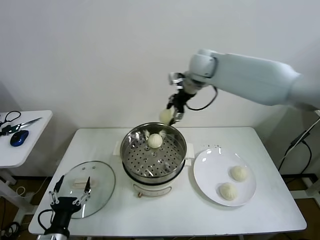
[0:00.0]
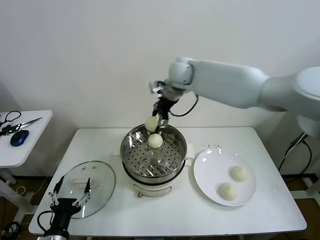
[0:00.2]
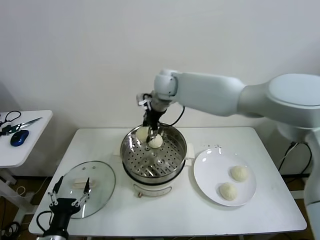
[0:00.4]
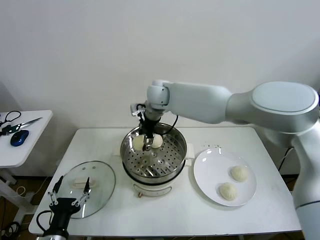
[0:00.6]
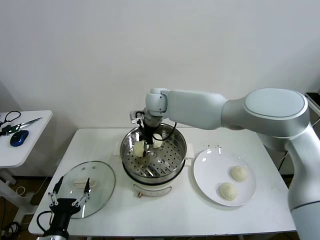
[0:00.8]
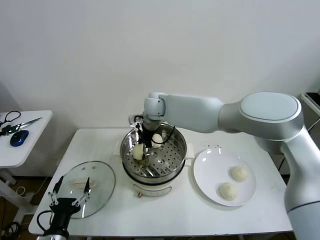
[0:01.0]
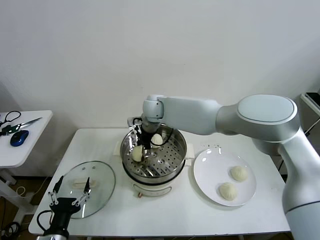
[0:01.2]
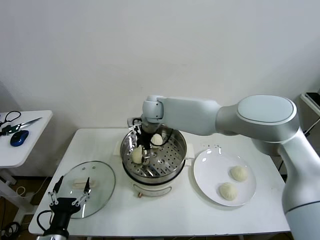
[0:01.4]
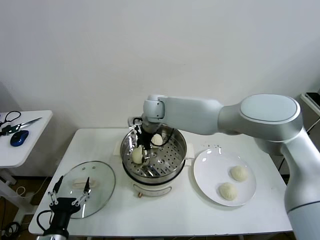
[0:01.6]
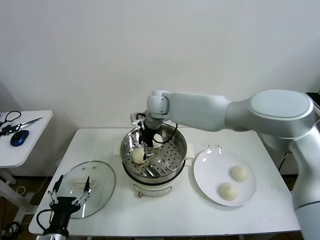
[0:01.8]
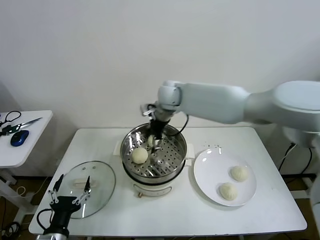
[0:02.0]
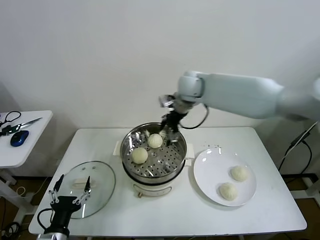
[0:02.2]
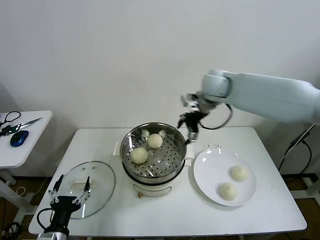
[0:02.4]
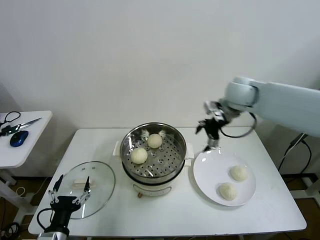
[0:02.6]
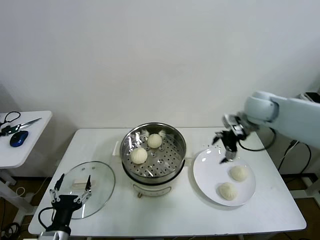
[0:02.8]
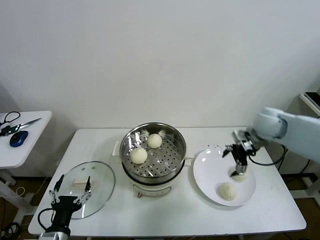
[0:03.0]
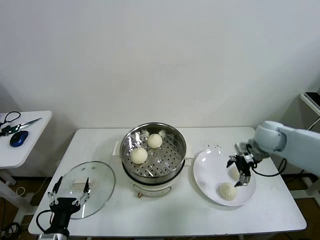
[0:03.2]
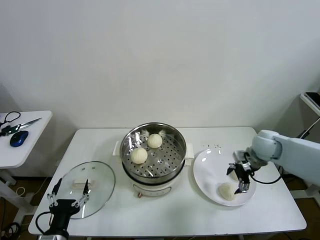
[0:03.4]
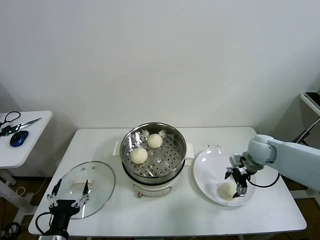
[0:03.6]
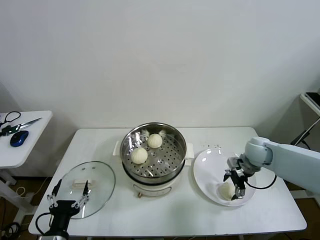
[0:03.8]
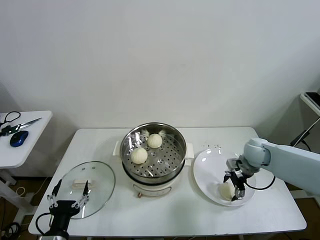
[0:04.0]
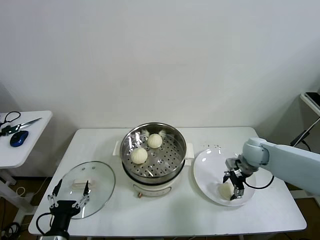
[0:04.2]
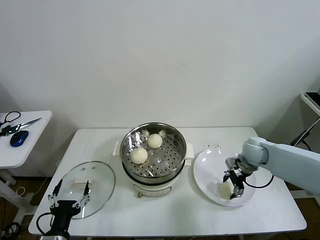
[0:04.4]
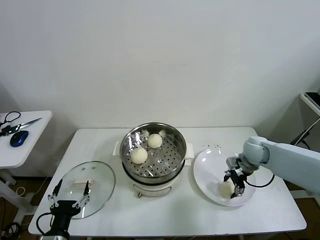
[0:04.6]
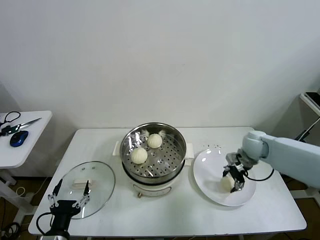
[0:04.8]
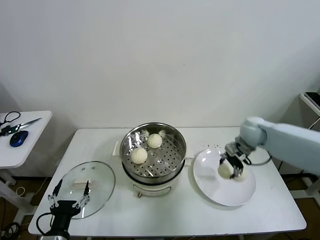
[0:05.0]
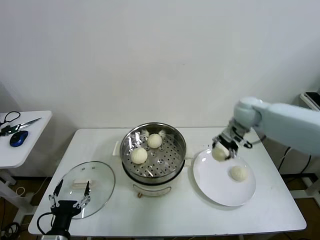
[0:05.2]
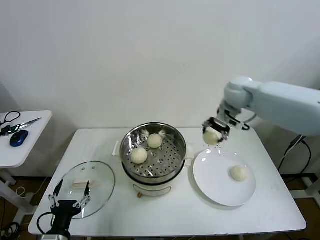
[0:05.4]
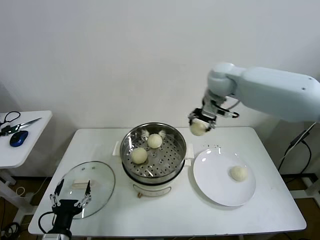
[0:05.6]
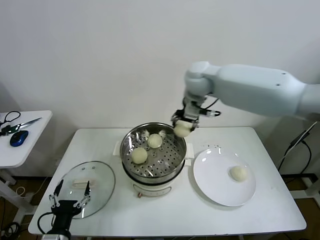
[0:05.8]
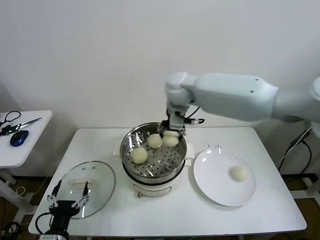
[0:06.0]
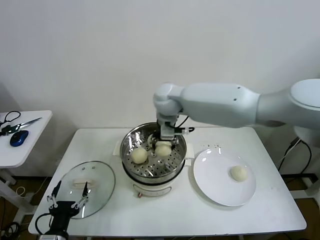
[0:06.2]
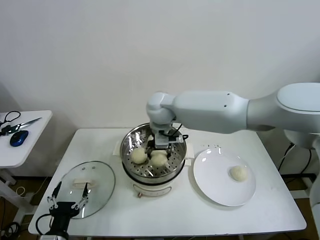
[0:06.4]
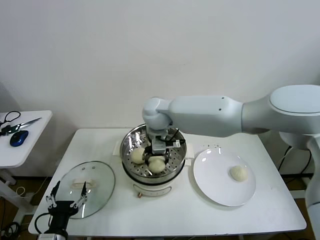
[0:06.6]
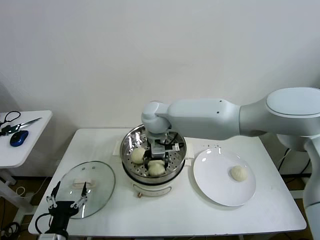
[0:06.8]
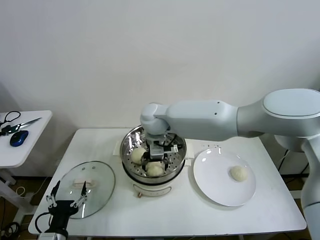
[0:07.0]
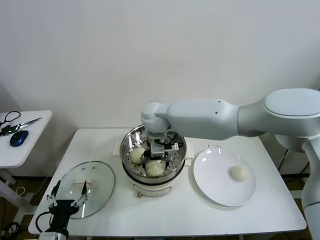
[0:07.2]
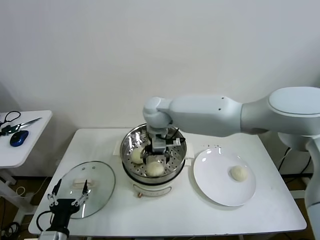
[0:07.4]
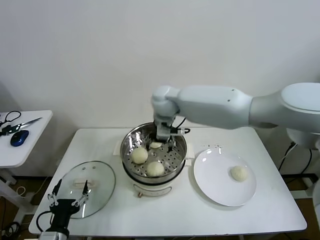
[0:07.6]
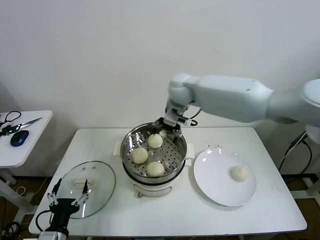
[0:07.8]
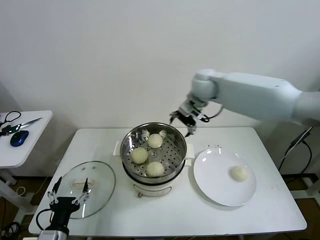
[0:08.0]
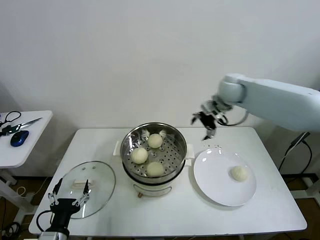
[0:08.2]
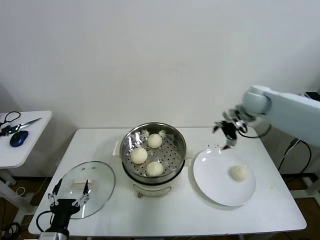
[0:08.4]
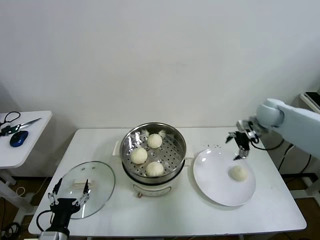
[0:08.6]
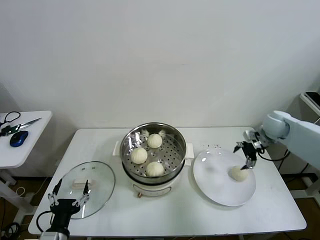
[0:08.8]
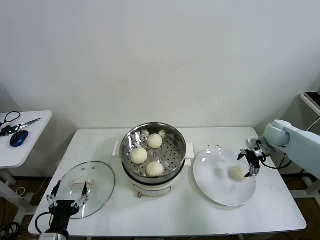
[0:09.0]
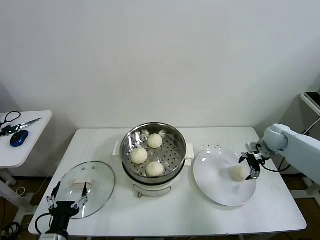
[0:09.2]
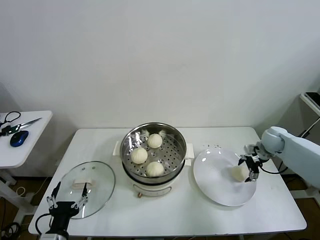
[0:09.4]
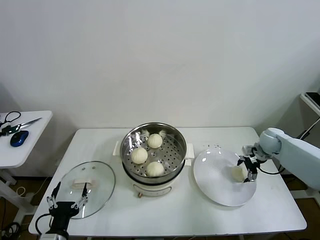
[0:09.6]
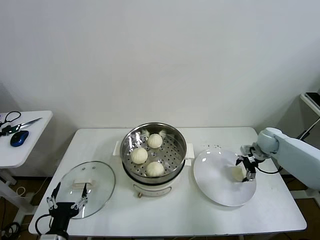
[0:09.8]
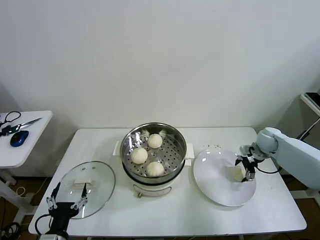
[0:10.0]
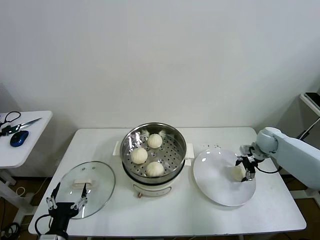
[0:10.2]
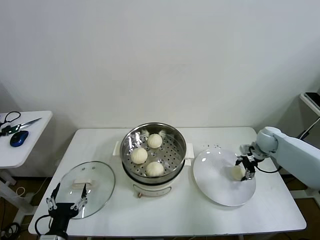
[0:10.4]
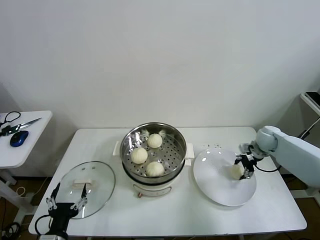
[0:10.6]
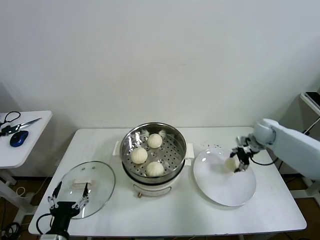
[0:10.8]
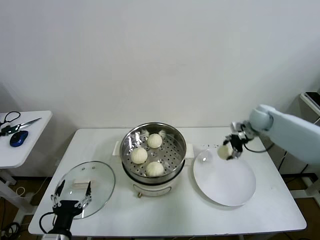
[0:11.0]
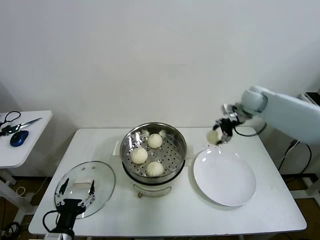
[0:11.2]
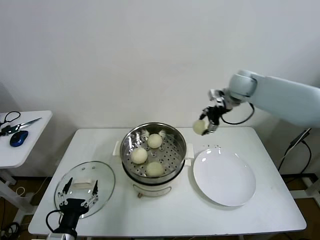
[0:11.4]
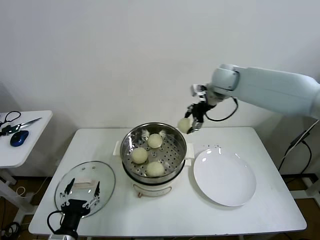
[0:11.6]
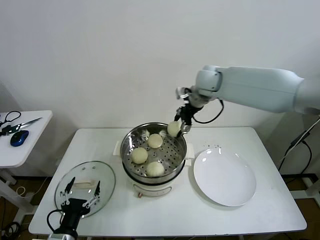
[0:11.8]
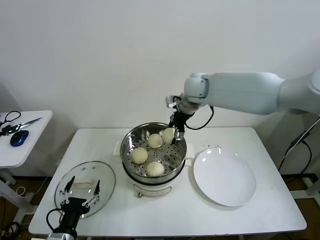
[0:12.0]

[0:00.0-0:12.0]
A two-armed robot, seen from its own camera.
Task of the whole recording: take steamed baozi put them in steamer then cover it.
Step, 0:00.0 to 0:01.8: Place the baozi on the steamer with right gripper.
Step, 0:02.0 to 0:04.4: Grasp the baozi in the plate with right gripper.
Step, 0:04.6 to 0:07.2: Place the baozi on the steamer with right gripper.
Step, 0:07.4 to 0:10.4: Grasp the baozi in the plate with right gripper.
0:00.0 to 0:01.6: The right gripper goes roughly 15 cm downward and to the left.
0:01.6 to 0:03.0: The right gripper goes roughly 35 cm to the right.
0:03.0 to 0:04.4: The right gripper moves downward, about 10 cm.
0:04.4 to 0:06.0: The right gripper goes some 40 cm to the left and upward.
0:06.0 to 0:07.6: The right gripper moves about 10 cm downward and comes back.
0:07.6 to 0:09.0: The right gripper travels to the right by approximately 40 cm.
0:09.0 to 0:10.4: The grippers stay close to where they were, moving slightly.
0:10.4 to 0:12.0: The right gripper is displaced to the left and upward by some 40 cm.

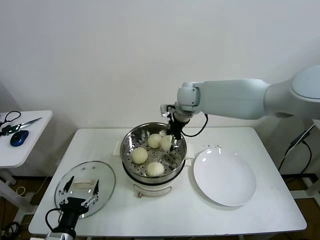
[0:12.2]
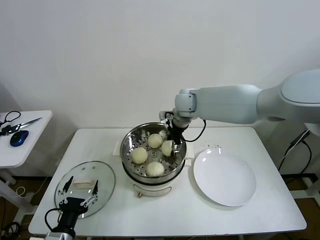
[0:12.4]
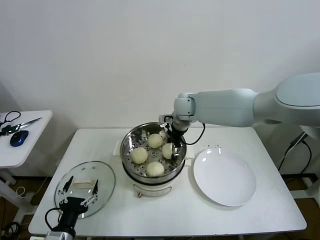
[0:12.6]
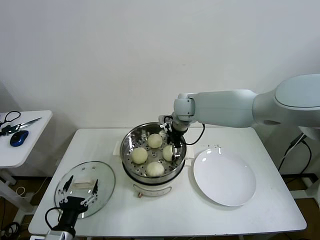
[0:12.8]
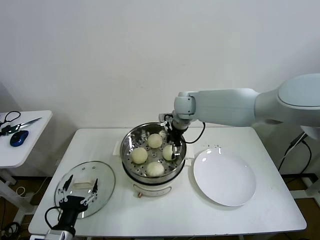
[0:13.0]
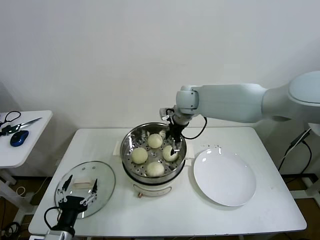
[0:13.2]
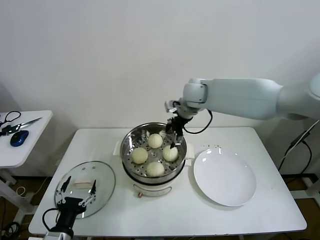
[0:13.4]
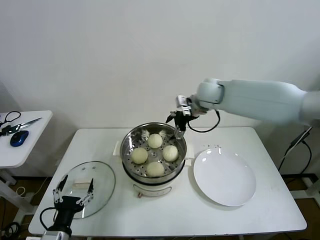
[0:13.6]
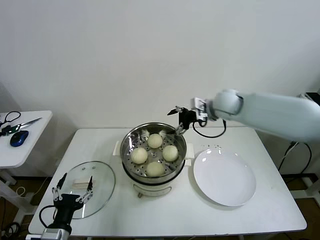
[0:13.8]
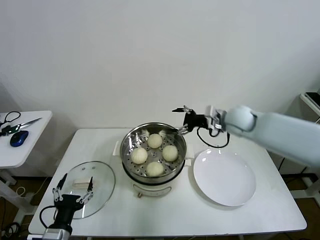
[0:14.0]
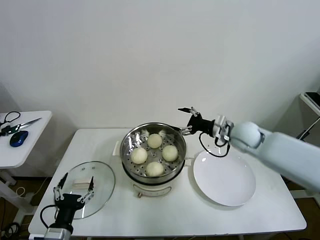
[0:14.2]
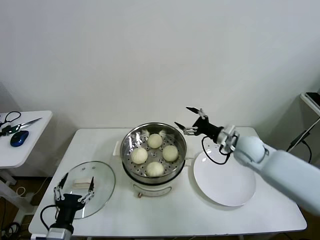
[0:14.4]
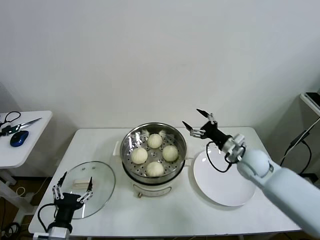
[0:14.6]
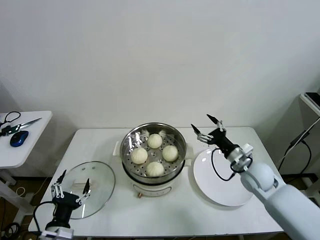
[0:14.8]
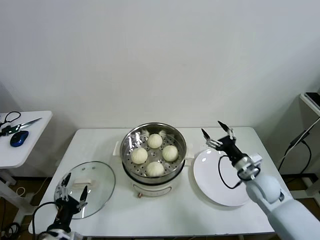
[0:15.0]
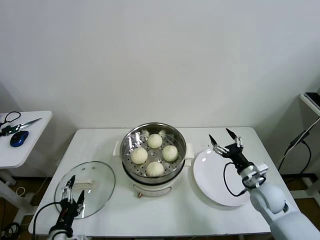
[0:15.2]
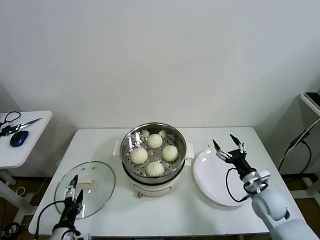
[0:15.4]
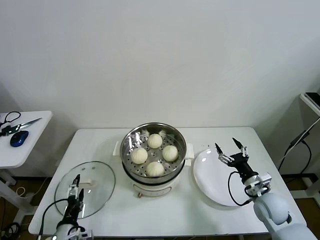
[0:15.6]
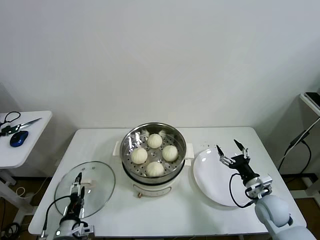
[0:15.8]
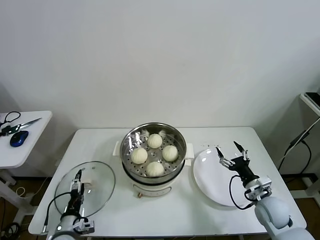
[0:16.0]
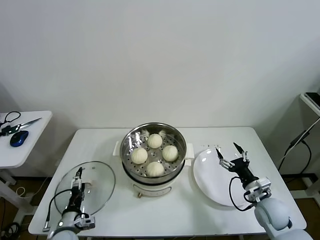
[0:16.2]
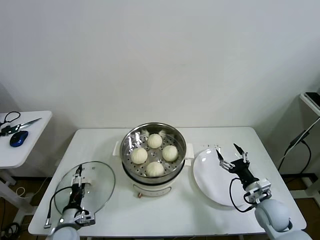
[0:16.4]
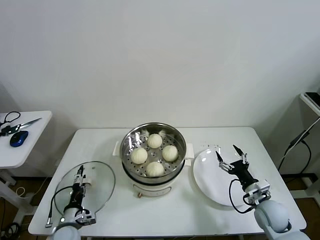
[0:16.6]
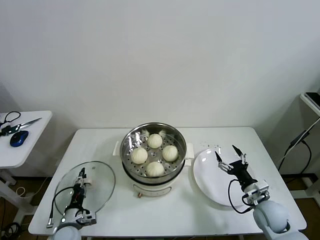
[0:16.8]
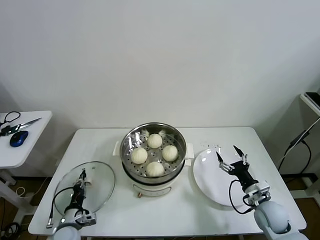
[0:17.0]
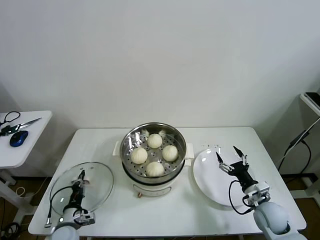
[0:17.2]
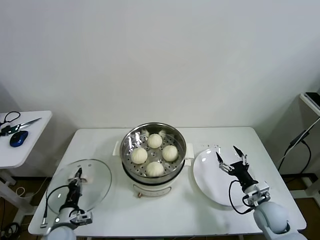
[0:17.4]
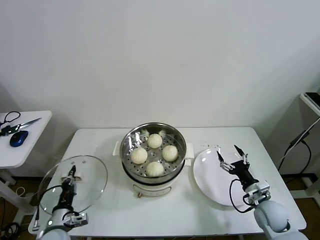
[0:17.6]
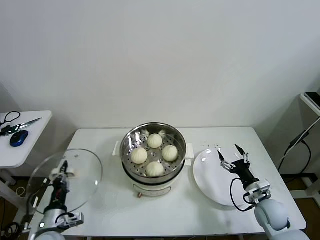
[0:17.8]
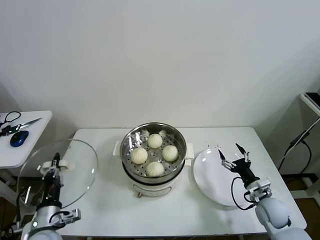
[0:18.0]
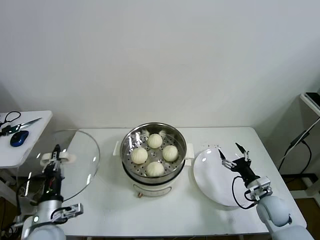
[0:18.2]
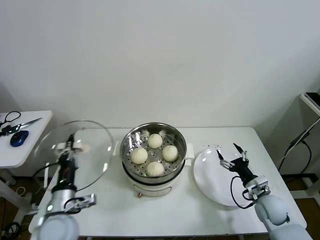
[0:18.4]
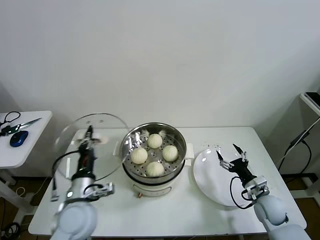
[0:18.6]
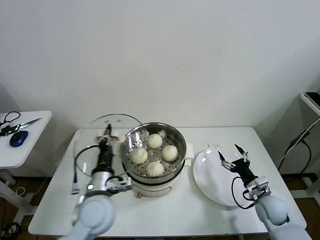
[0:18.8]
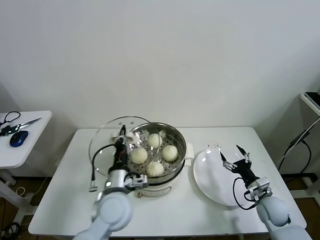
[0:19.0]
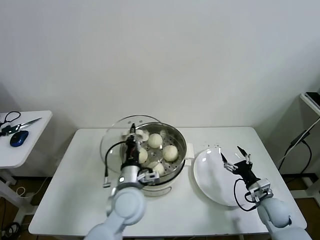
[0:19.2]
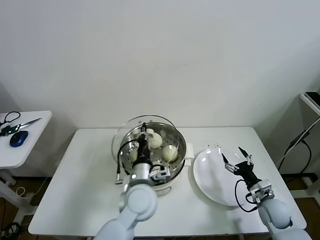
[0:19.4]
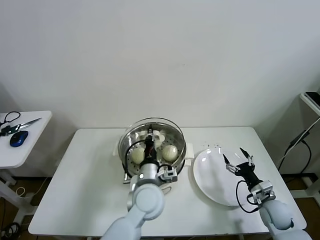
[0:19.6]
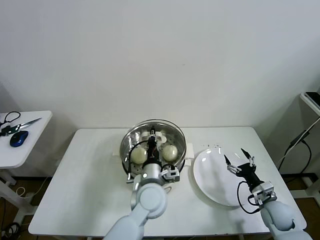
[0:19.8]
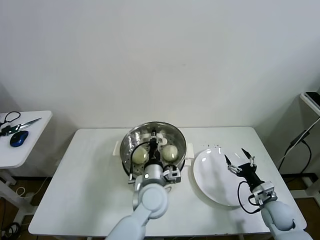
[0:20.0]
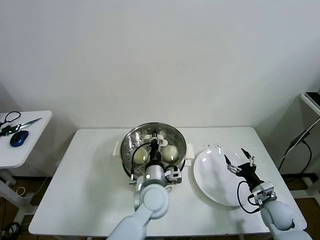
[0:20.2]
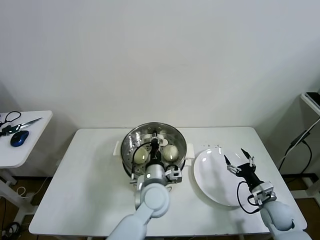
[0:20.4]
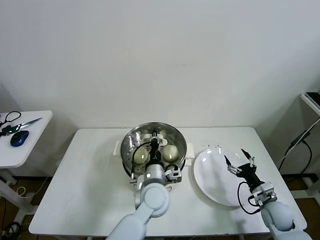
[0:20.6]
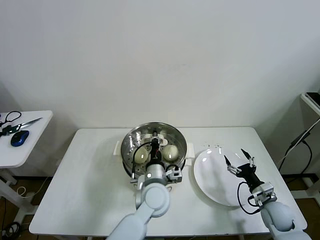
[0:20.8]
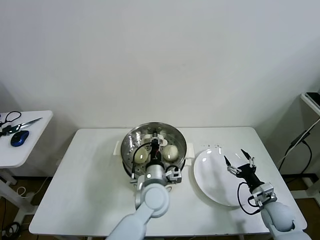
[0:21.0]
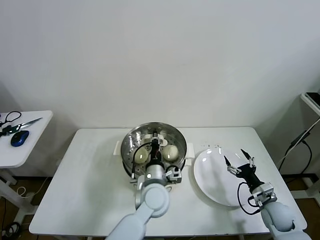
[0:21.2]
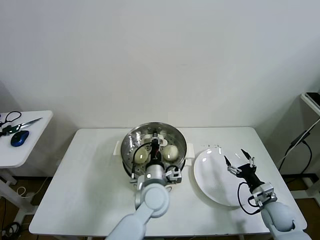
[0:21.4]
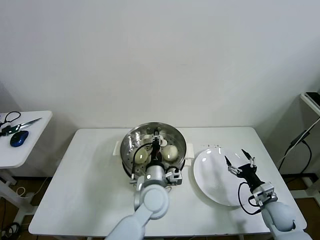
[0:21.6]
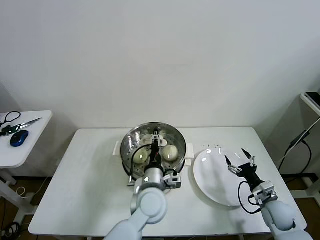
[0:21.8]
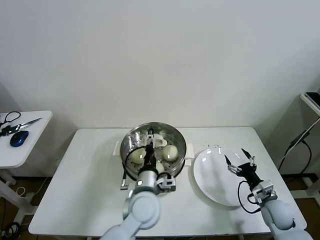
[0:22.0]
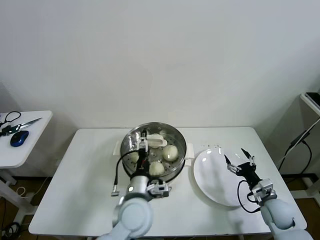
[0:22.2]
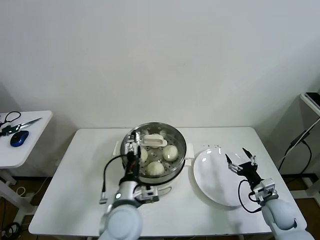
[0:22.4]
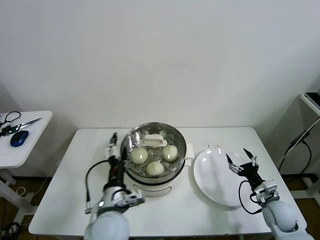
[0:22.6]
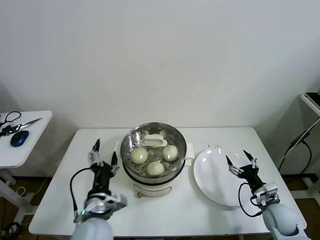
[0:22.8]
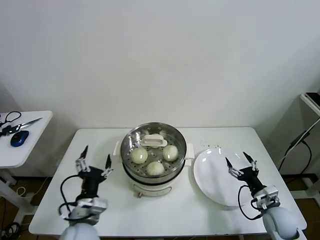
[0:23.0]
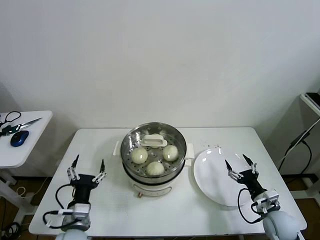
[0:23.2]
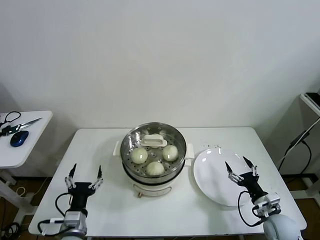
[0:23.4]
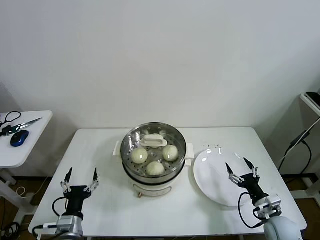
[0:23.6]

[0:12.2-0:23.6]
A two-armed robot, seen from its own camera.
Task of the whole recording: take steamed baozi put them in steamer then cover it.
Step, 0:13.0 to 0:17.2: Grasp the pot lid with left gripper.
Step, 0:17.4 to 0:22.0: Place the pot lid on the steamer with left gripper.
0:12.2 to 0:13.6: The right gripper moves to the right, about 5 cm.
0:13.6 to 0:15.0: The right gripper goes about 35 cm downward, backward and to the right.
0:15.0 to 0:16.4: The left gripper is displaced downward and forward by approximately 15 cm. Meanwhile the right gripper moves downward and backward, approximately 10 cm.
0:16.4 to 0:17.8: The left gripper heads upward, covering approximately 10 cm, and closes up.
0:17.8 to 0:19.4: The left gripper shifts approximately 30 cm to the right and upward.
0:19.4 to 0:20.8: The left gripper changes place by approximately 5 cm.
0:20.8 to 0:22.2: The left gripper changes place by about 5 cm, and opens its fingers.
0:22.2 to 0:23.6: The right gripper travels backward by roughly 5 cm, while the left gripper moves to the left, downward and backward, approximately 25 cm.
